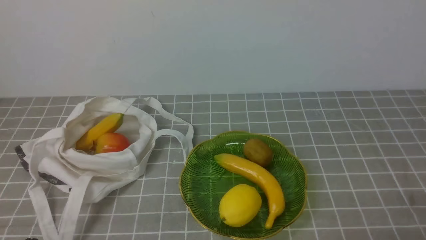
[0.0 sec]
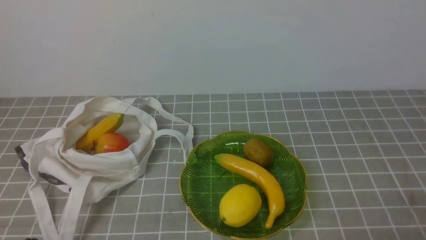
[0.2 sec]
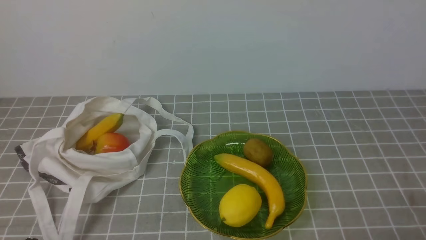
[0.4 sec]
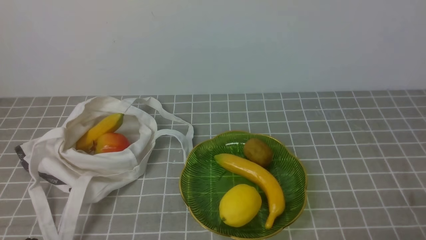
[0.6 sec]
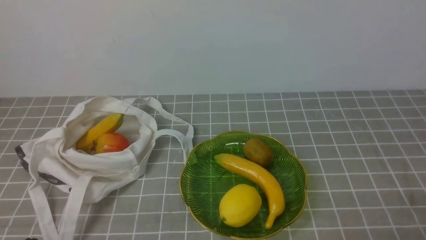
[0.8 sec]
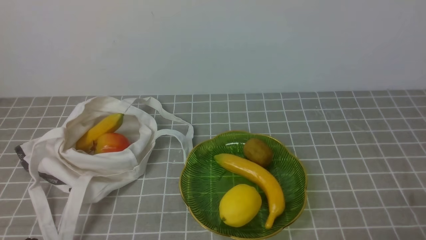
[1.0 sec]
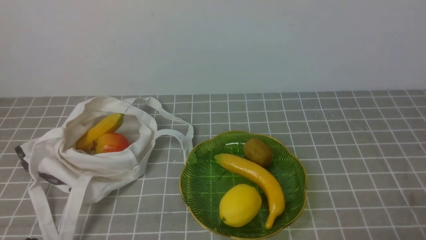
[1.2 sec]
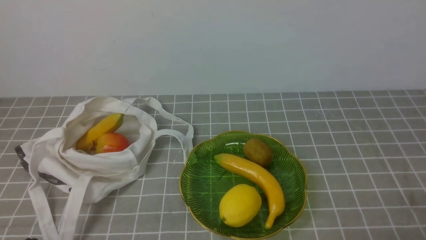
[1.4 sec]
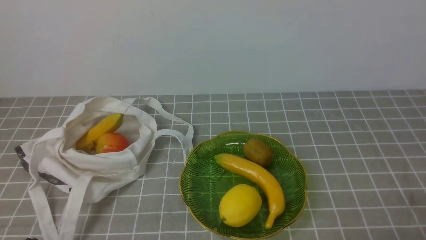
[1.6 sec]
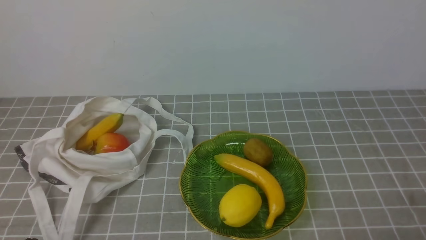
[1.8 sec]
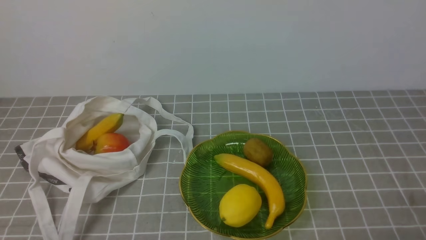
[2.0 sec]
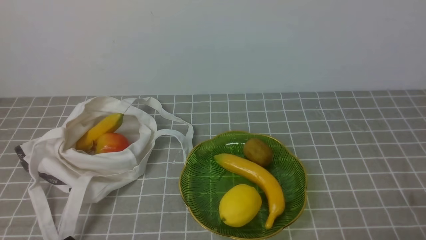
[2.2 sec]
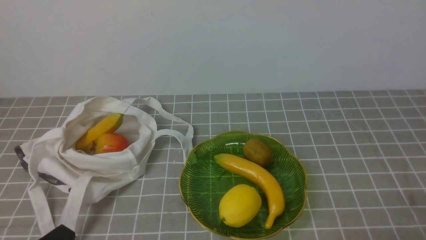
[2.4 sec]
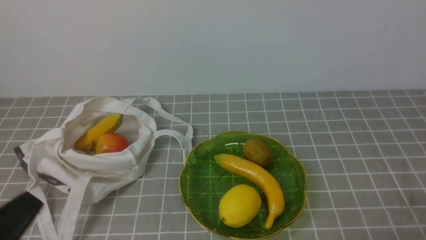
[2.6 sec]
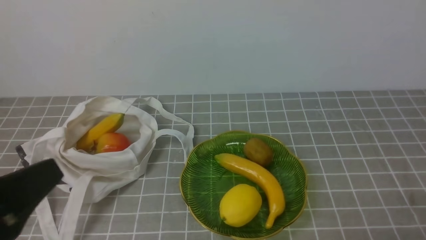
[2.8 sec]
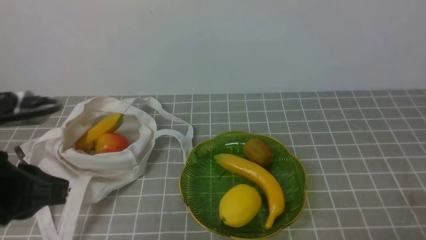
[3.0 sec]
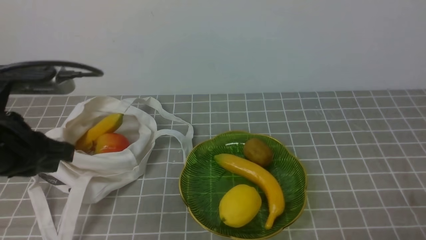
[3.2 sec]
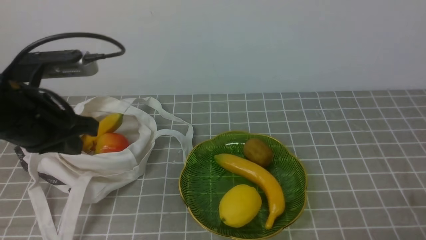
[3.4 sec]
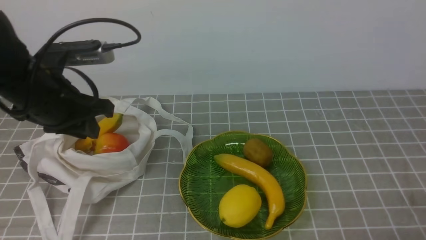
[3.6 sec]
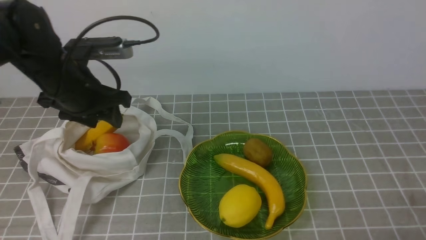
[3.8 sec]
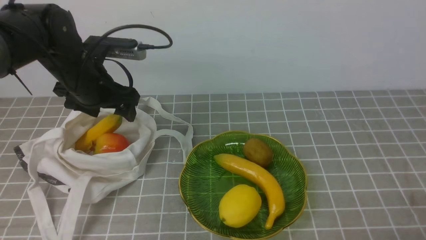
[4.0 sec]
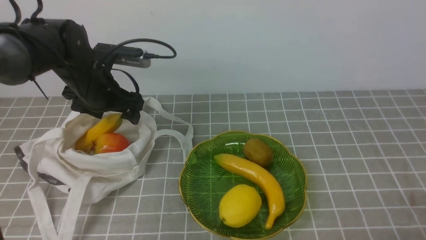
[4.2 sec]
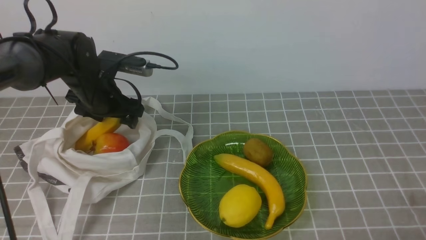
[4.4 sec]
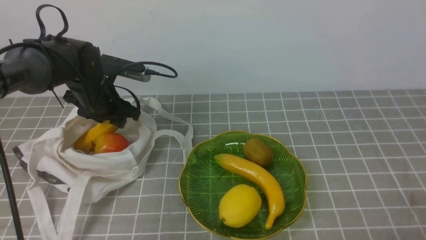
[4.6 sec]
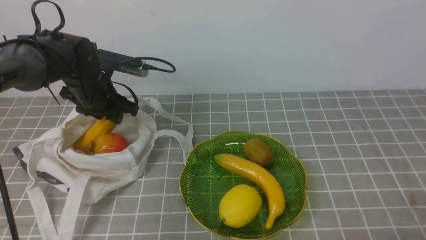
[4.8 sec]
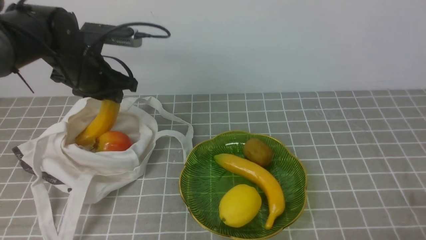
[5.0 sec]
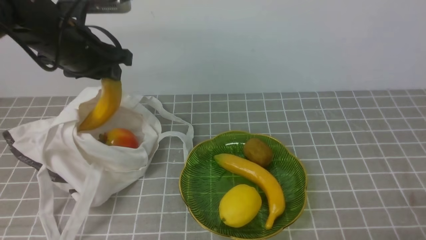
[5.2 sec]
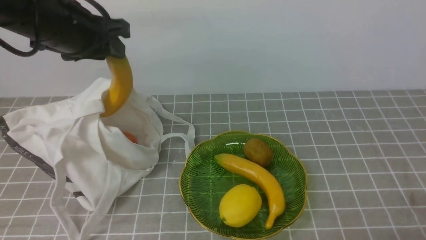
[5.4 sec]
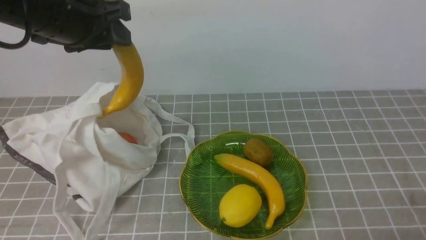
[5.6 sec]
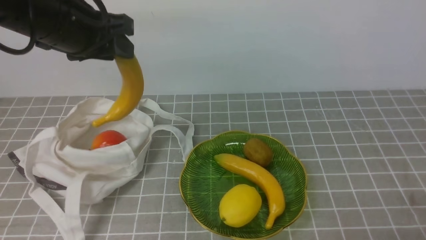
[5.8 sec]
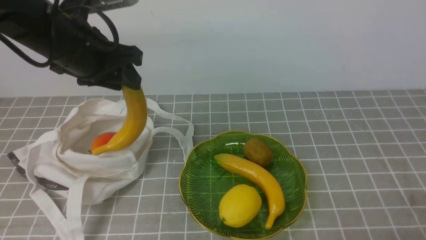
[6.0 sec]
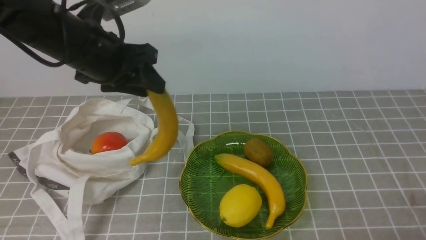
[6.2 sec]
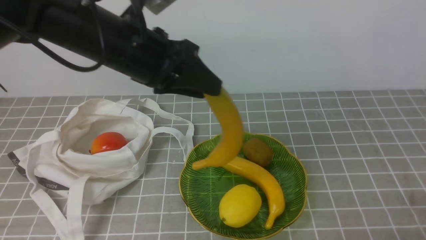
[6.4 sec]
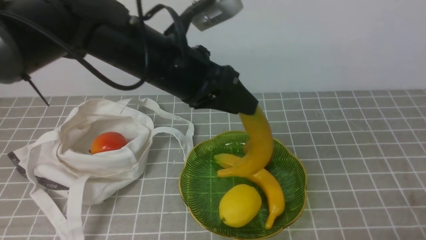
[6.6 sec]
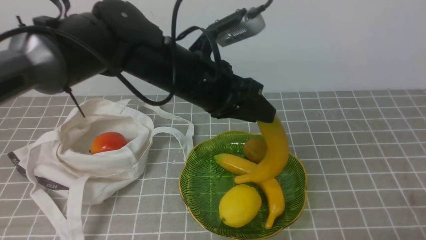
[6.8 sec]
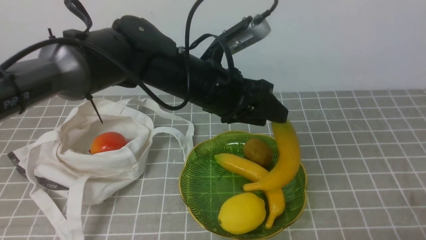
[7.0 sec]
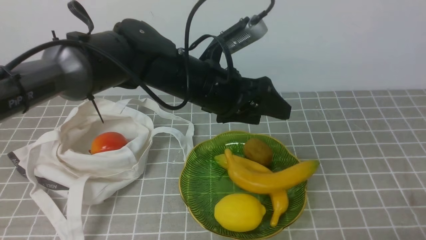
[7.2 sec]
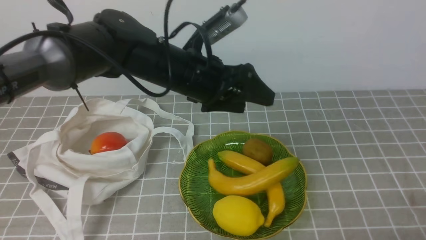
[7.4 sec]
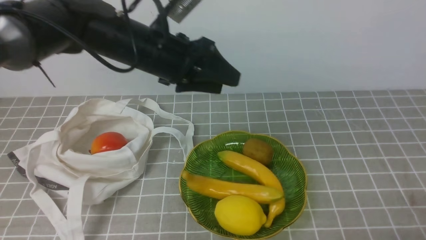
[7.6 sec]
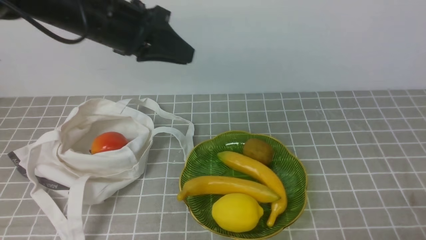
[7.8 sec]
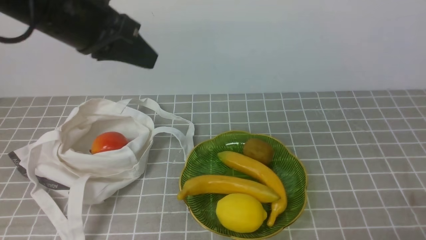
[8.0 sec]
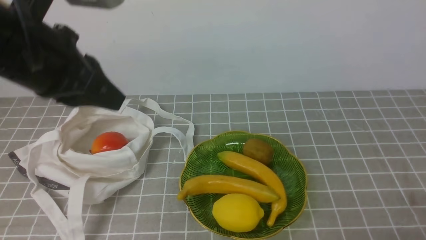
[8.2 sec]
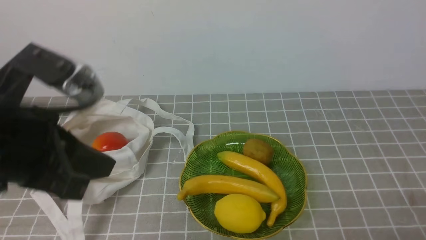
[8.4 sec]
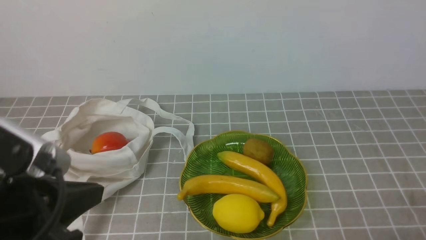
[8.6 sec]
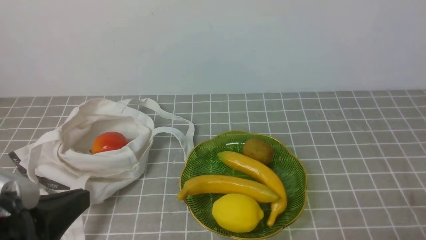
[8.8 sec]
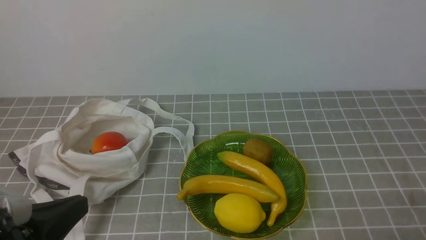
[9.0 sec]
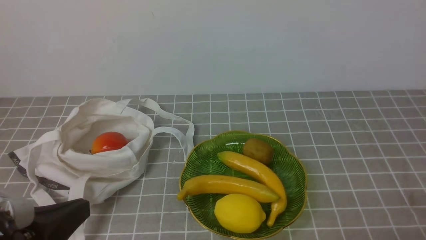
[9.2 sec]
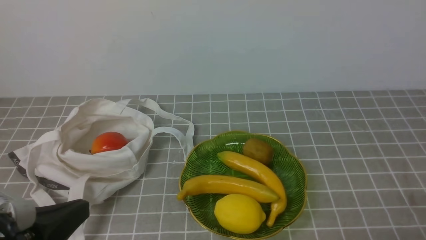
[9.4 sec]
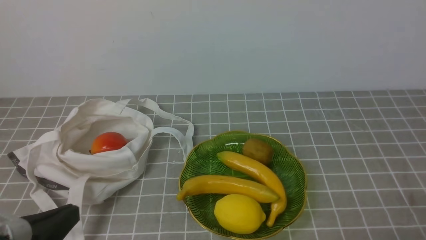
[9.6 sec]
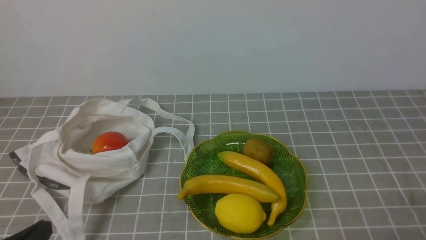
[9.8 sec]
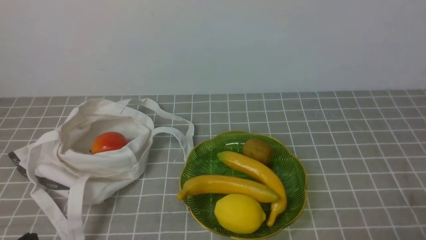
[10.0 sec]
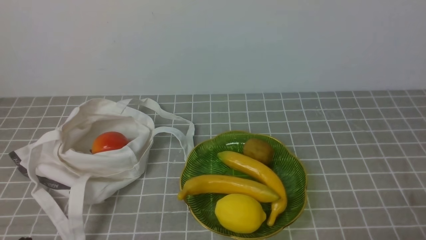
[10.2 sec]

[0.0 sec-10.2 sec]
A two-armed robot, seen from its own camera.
Step, 0.0 sec to 4.8 sec: use the left arm to grab a banana from the bag.
Step, 5.0 sec to 7.2 sec: use the left arm to put the banana into the empty plate on the right.
0.0 sec to 1.4 sec: The two grippers keep their place.
1.4 sec to 3.0 sec: The left gripper is displaced upward and forward by about 20 cm.
3.0 sec to 4.4 sec: The left gripper moves forward and downward, roughly 30 cm, and opens up.
4.4 sec to 5.8 sec: The left gripper is displaced upward and backward by approximately 15 cm, and closes up.
5.8 sec to 7.2 sec: The left gripper heads to the right and downward, covering about 15 cm, and opens.
7.2 sec to 8.8 sec: The left gripper travels backward and to the left by approximately 30 cm, and closes.
8.8 sec to 10.2 sec: The left gripper is displaced downward by approximately 10 cm.

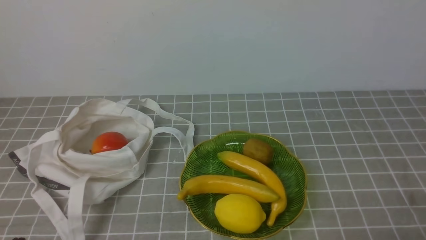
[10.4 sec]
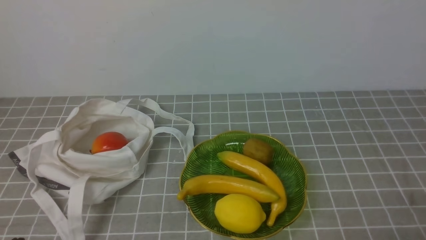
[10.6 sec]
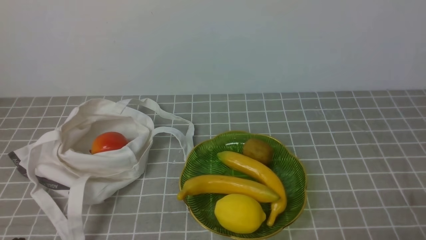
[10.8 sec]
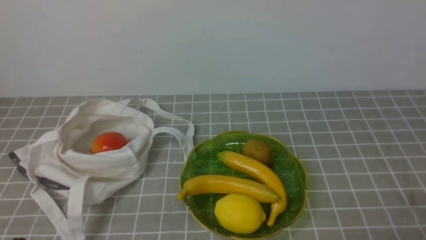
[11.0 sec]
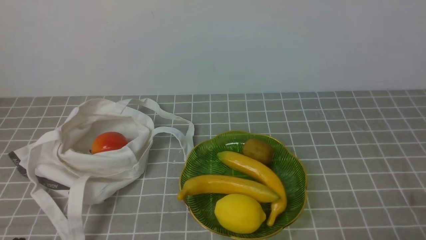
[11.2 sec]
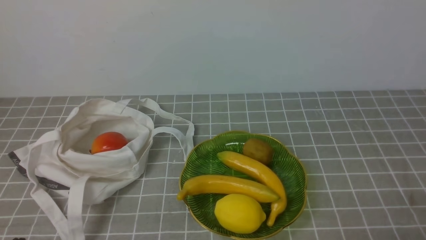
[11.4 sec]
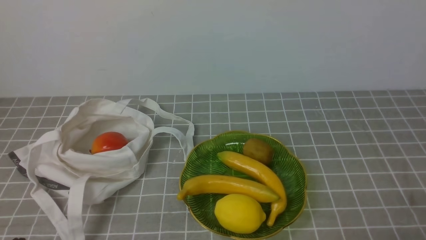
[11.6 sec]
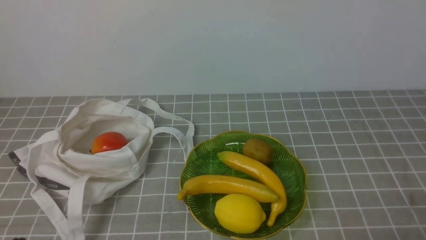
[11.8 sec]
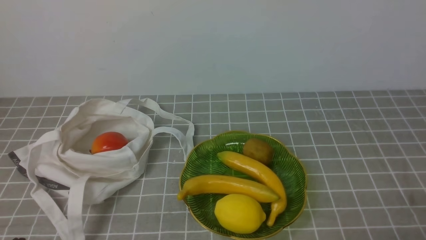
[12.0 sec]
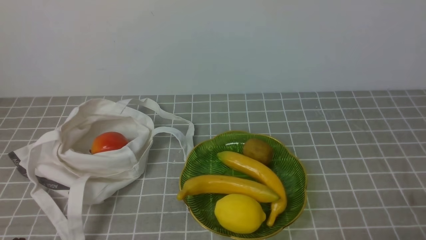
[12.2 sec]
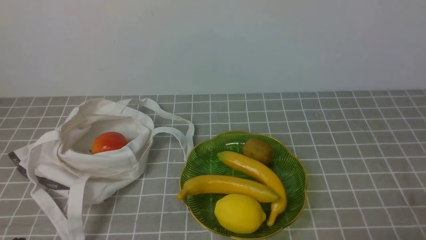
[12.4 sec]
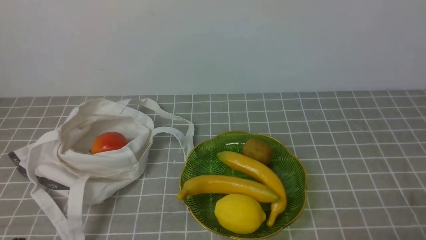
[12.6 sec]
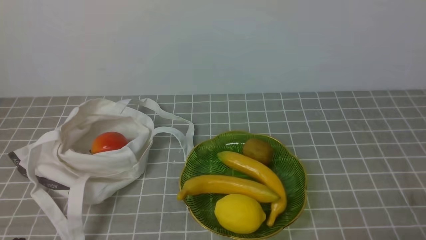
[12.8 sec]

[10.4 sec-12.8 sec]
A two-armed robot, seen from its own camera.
10.4 sec to 12.8 sec: The two grippers keep their place.
